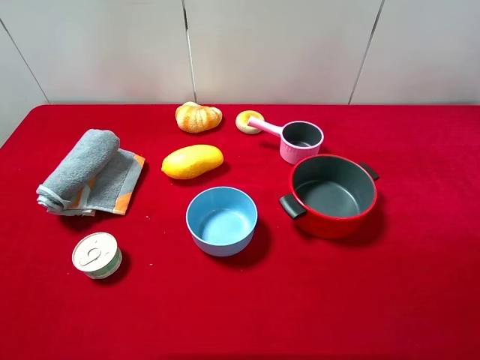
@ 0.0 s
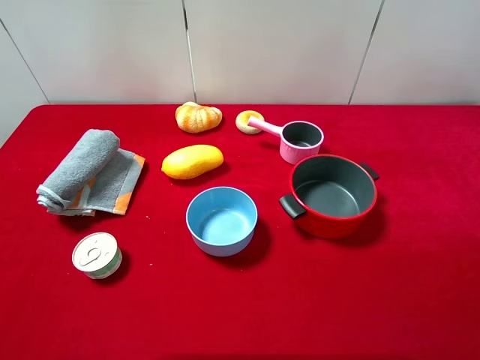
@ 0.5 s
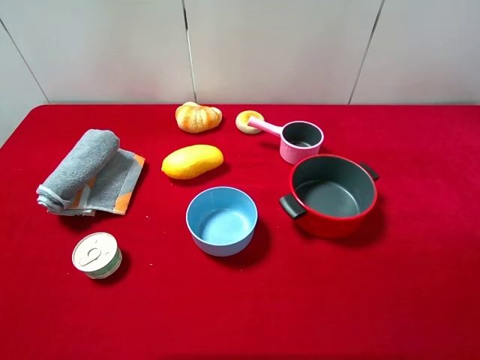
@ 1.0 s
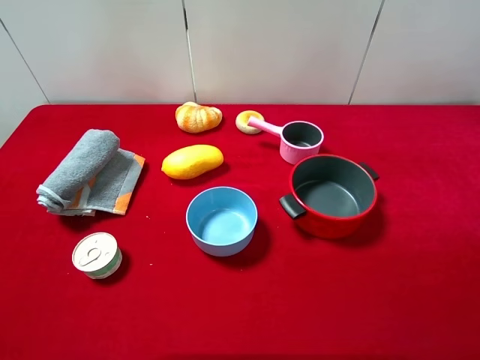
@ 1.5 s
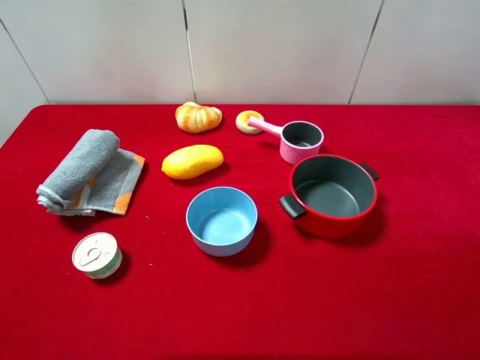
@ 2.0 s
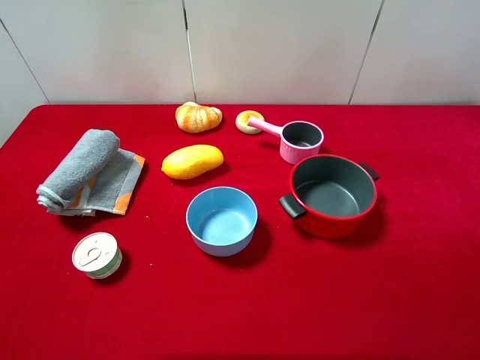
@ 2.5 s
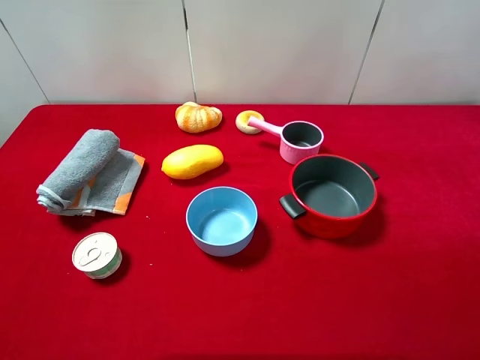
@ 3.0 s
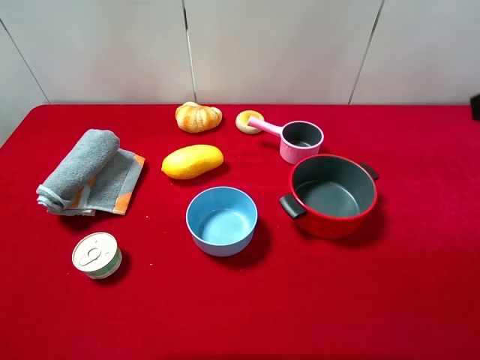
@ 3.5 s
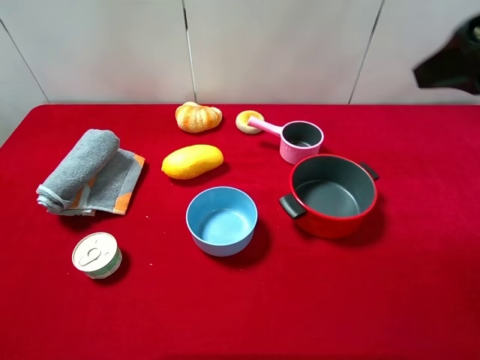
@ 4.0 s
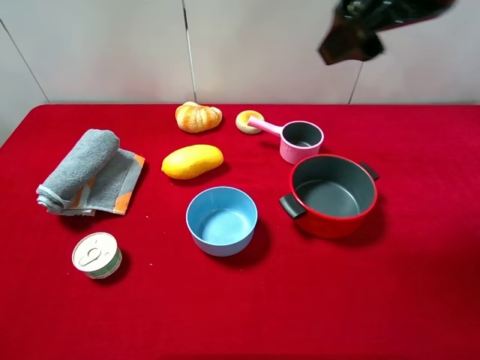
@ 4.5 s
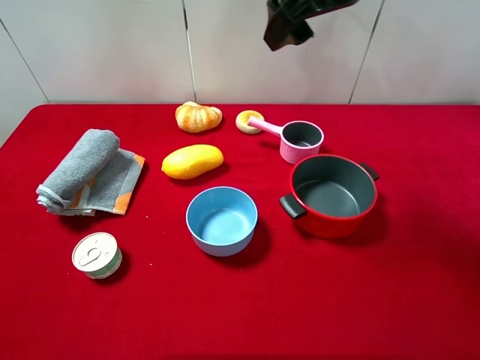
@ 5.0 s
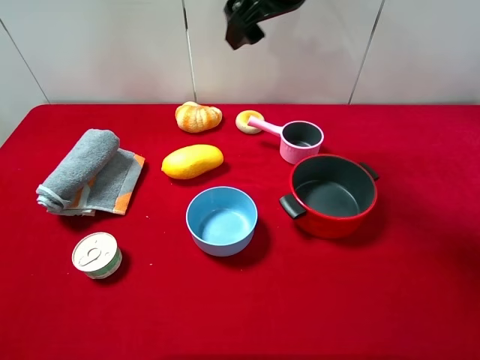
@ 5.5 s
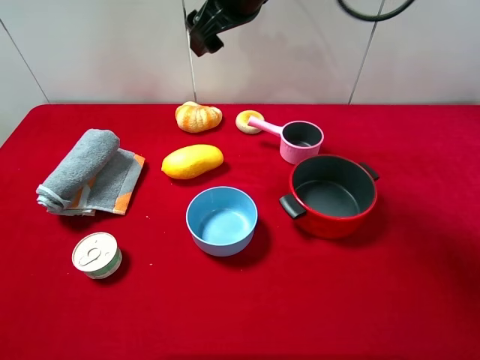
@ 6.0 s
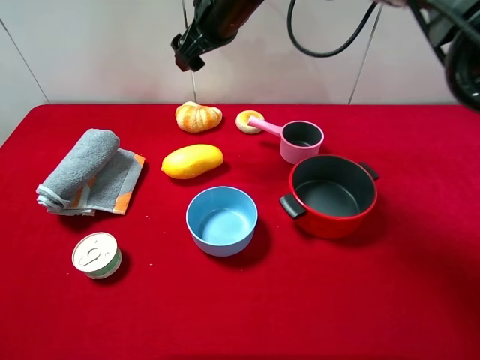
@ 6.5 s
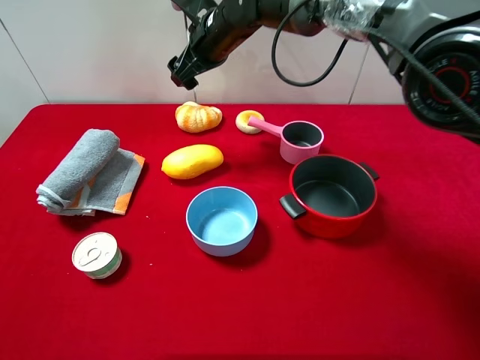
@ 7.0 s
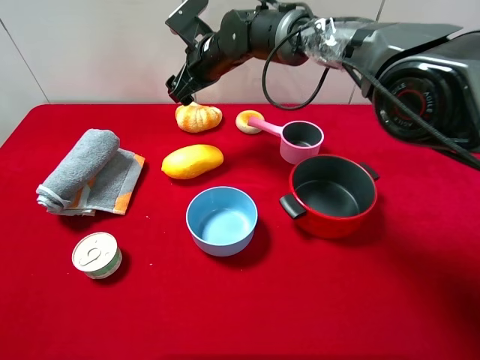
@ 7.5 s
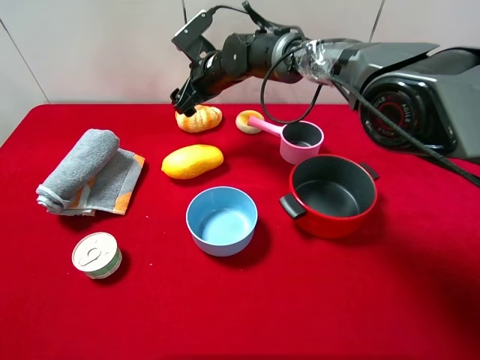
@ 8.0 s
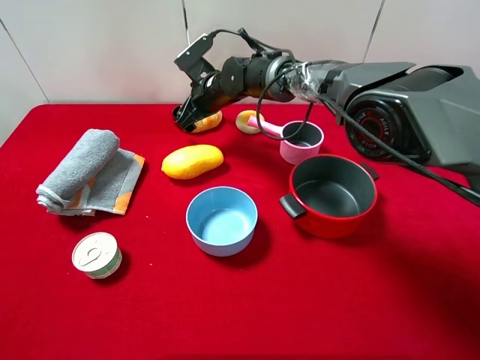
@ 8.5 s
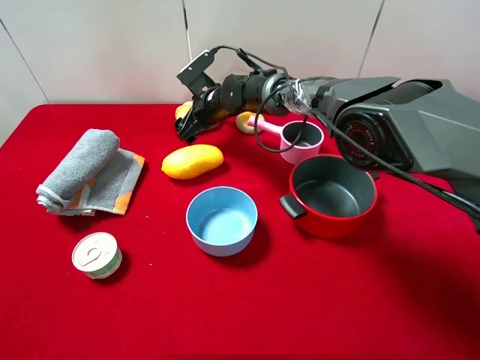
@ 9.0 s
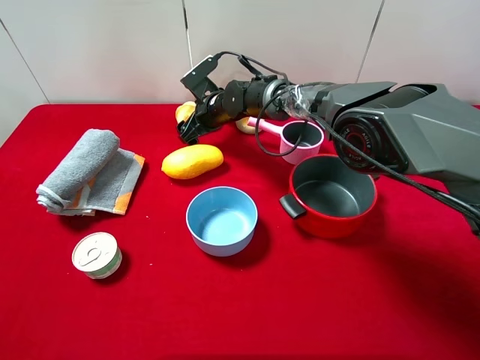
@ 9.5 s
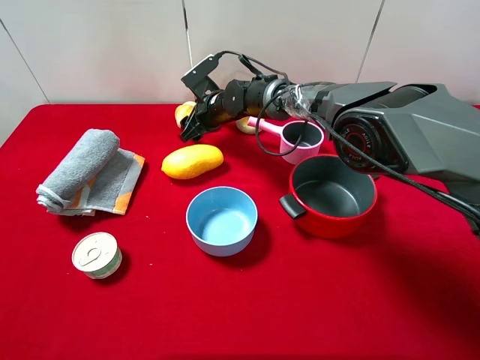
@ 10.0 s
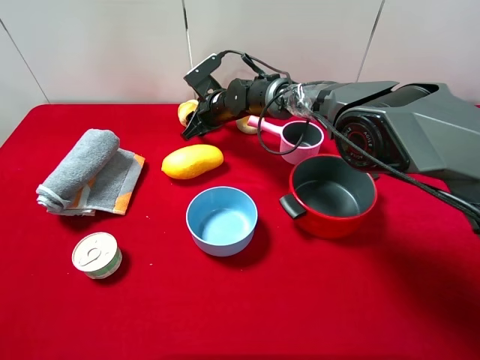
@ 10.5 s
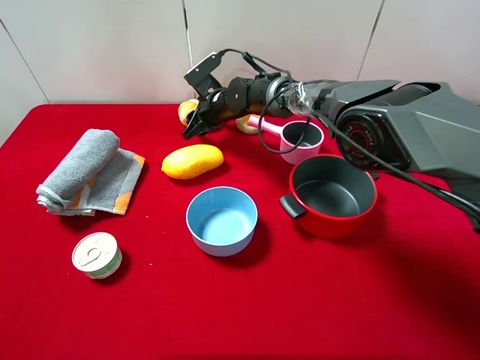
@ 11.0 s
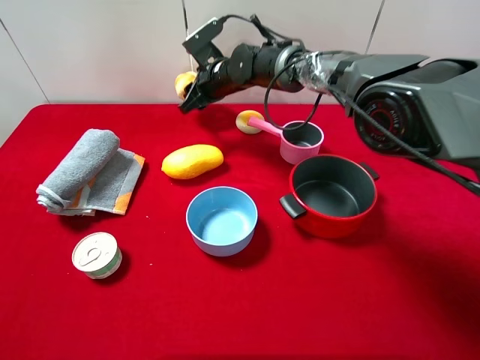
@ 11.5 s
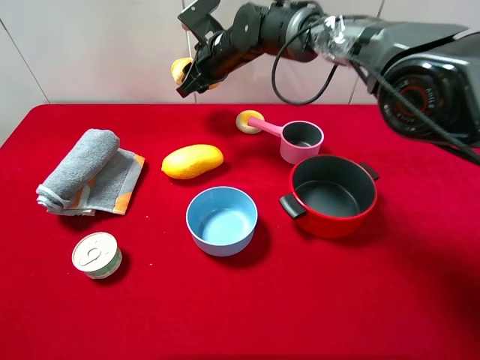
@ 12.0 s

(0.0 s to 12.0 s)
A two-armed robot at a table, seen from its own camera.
Task of the whole recording: pick up an item with a gripper and place it in a random container on the desktop.
0.0 s - 2.0 s: Both grippers stay put.
2.0 s - 4.0 s: The right gripper moves forward and upward, approximately 20 cm.
4.0 s - 6.0 s: The right gripper moves to the left and forward, about 30 cm.
6.0 s - 8.0 s: The right gripper heads downward, covering some 15 cm.
8.0 s - 10.0 s: The right gripper goes about 10 cm downward, and closes.
10.0 s - 12.0 s: The right gripper moves upward, about 10 cm, and closes its fingers.

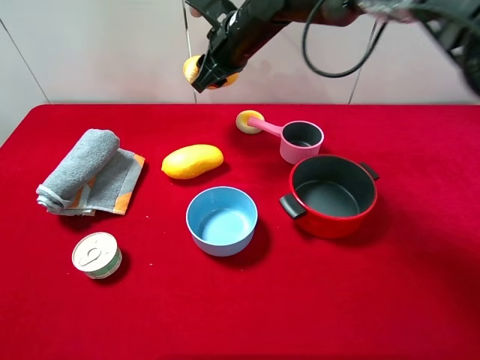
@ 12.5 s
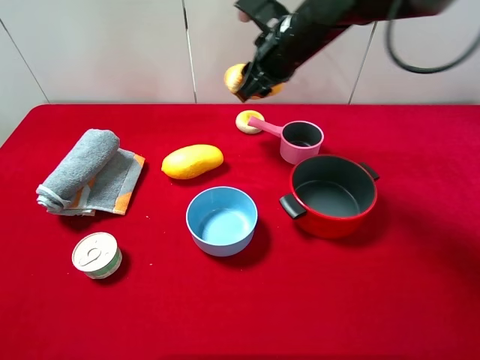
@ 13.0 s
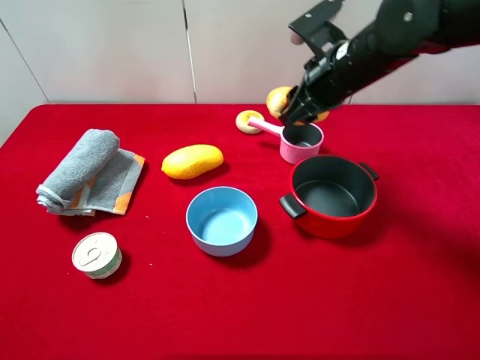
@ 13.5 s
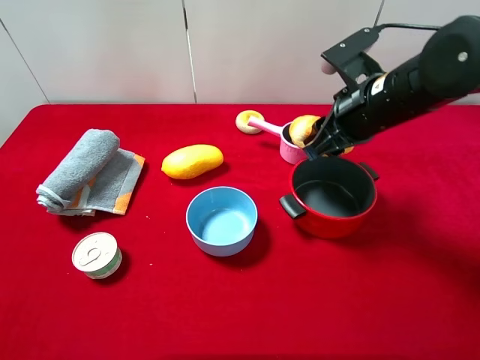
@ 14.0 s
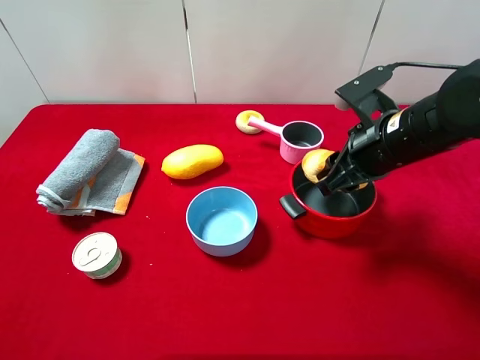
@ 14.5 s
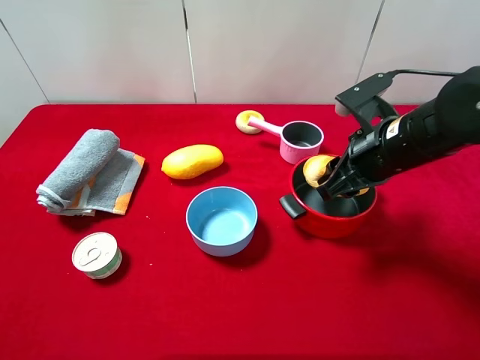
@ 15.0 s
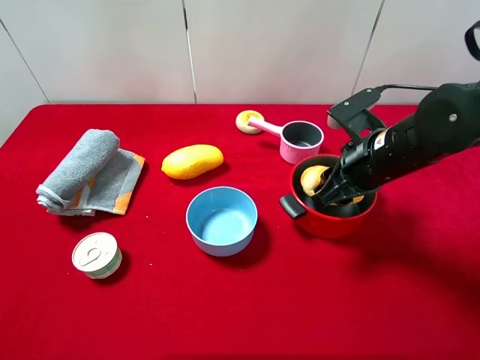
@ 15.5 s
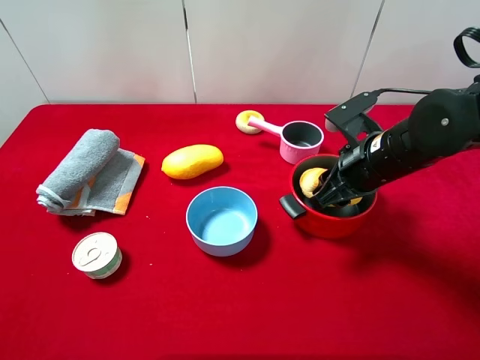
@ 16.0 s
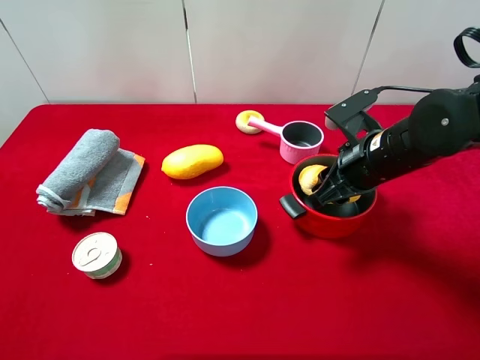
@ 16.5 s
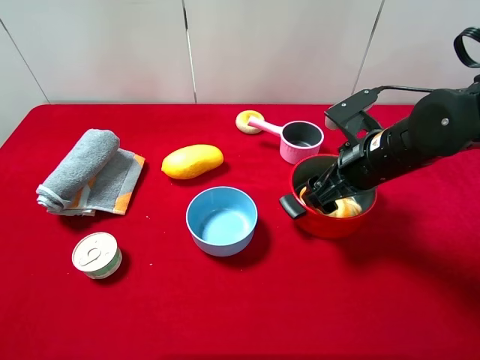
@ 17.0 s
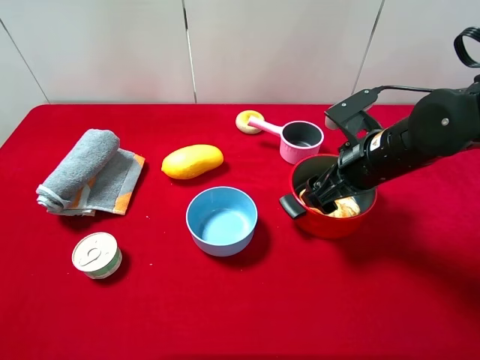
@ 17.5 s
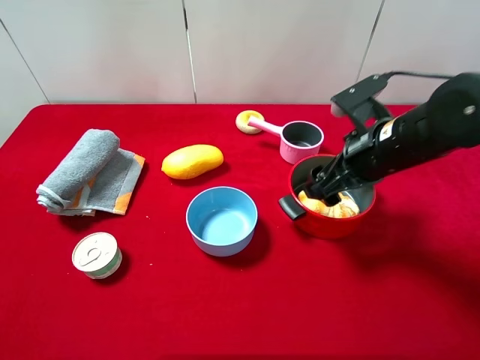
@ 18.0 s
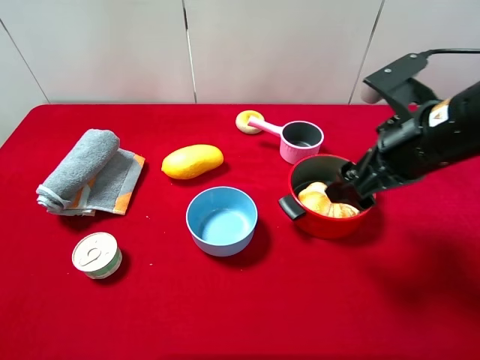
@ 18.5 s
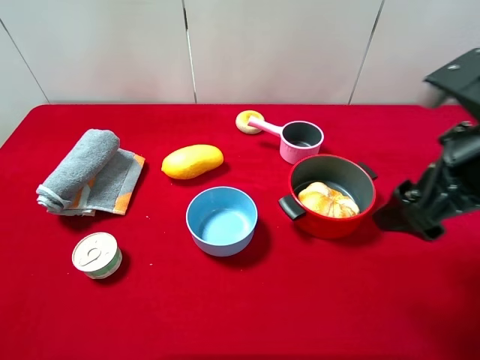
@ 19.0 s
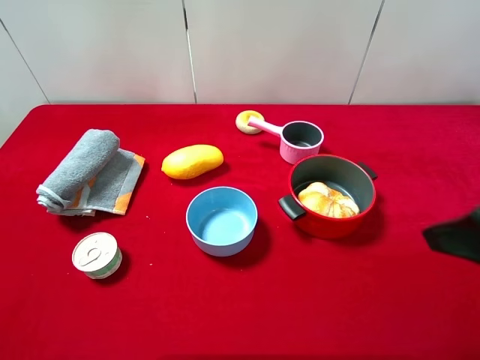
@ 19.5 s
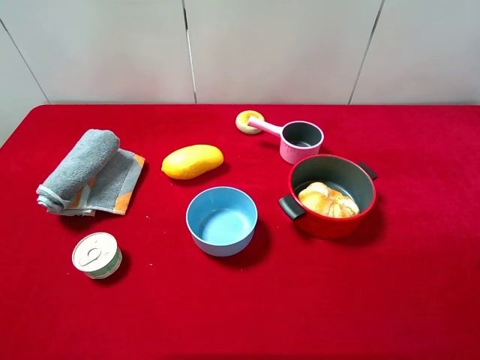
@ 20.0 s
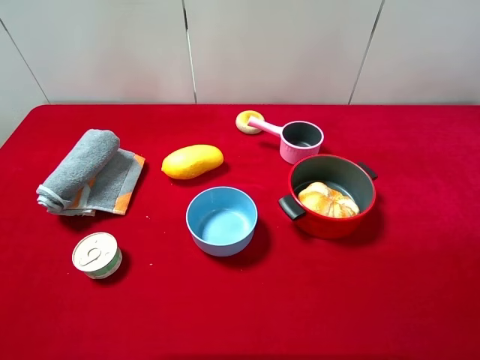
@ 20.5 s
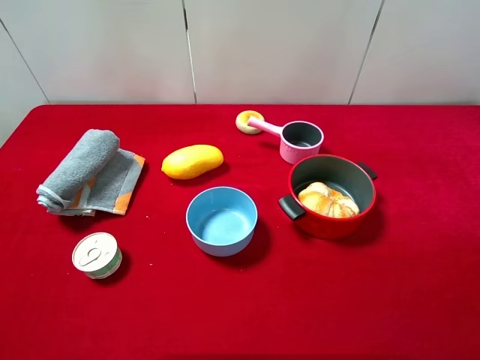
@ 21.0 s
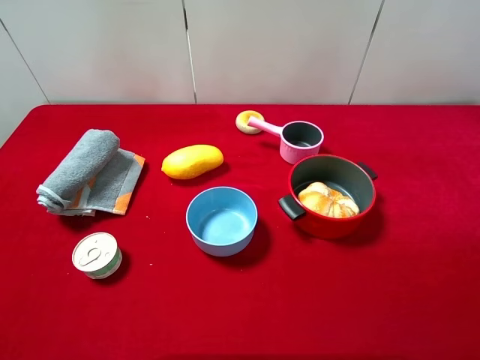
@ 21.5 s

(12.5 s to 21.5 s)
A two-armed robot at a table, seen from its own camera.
Task of the whole recording: pick up an item with a gripper and place it in a random container on the desktop.
12.5 s - 14.5 s: The right gripper goes about 25 cm to the right and backward.
14.5 s - 17.0 s: The right gripper opens its fingers.
17.0 s - 19.5 s: The right gripper heads backward, upward and to the right, covering roughly 20 cm.
19.5 s - 21.5 s: The right gripper shifts approximately 10 cm backward.
